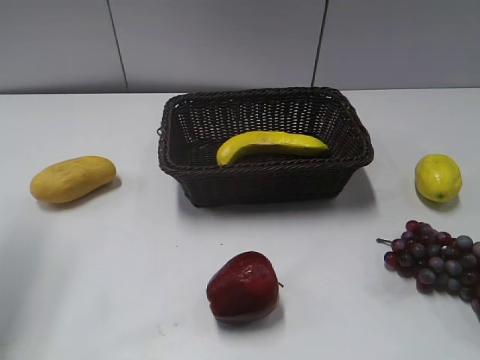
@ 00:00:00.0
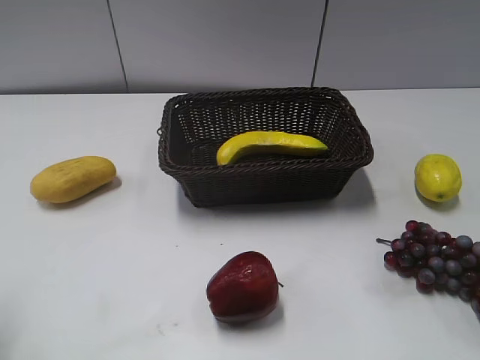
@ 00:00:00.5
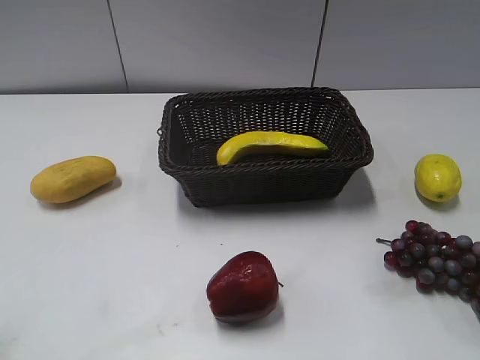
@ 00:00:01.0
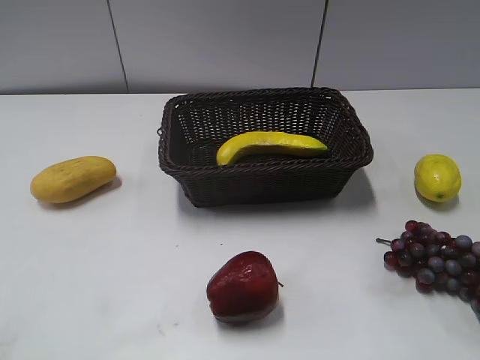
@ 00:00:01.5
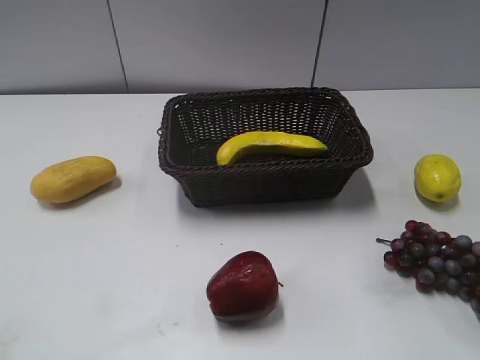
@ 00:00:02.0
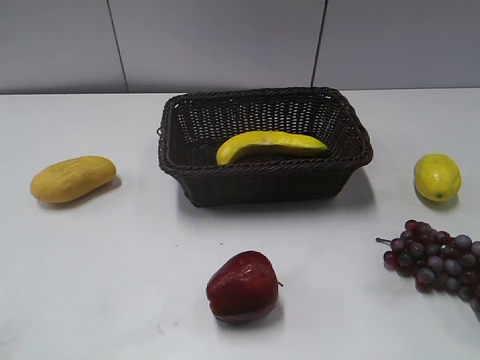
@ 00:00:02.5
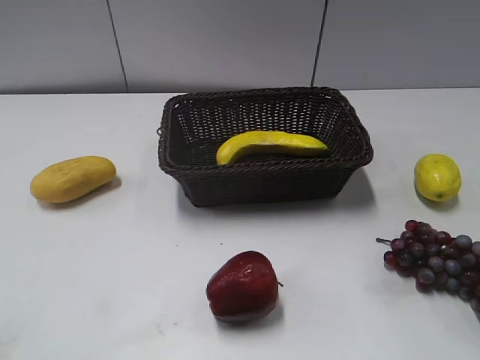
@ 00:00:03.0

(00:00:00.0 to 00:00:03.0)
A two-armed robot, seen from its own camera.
00:00:00.0 - 00:00:01.5: The left gripper heads backward, covering approximately 25 cm.
